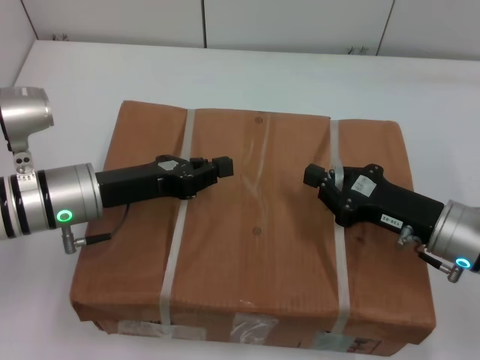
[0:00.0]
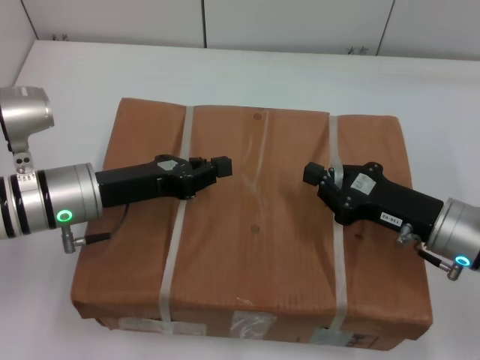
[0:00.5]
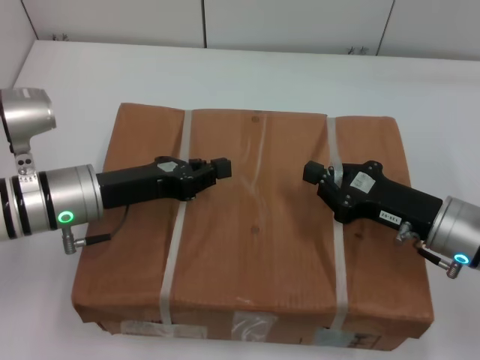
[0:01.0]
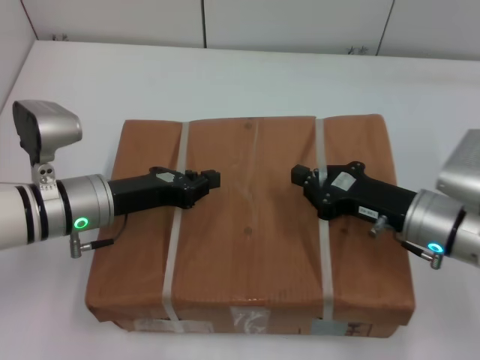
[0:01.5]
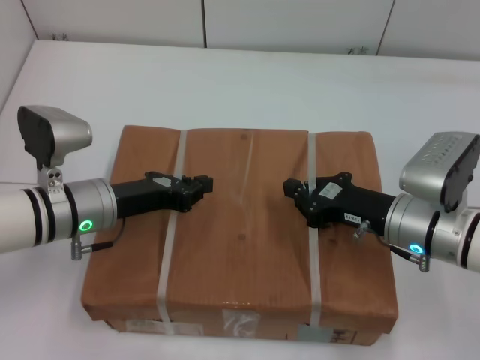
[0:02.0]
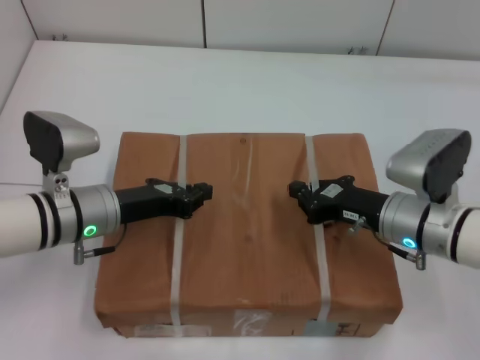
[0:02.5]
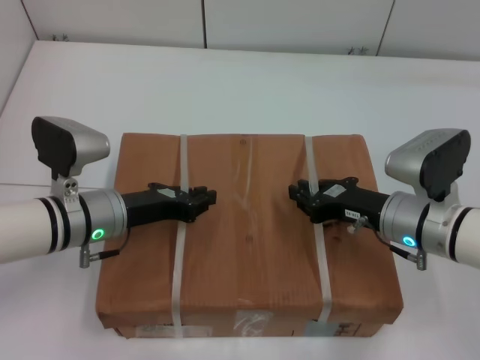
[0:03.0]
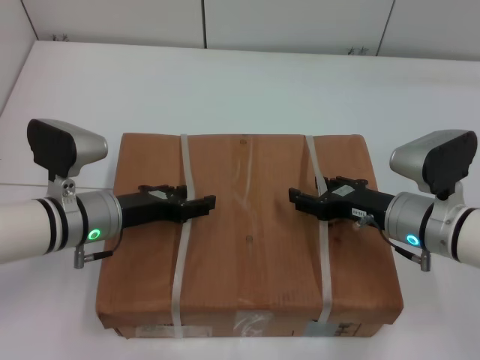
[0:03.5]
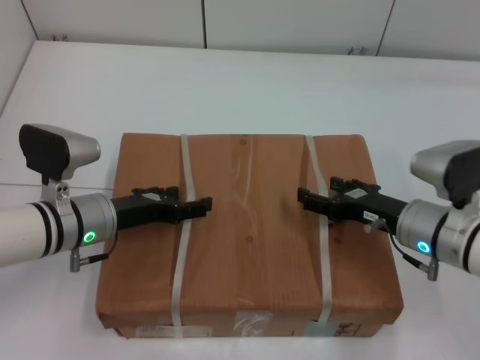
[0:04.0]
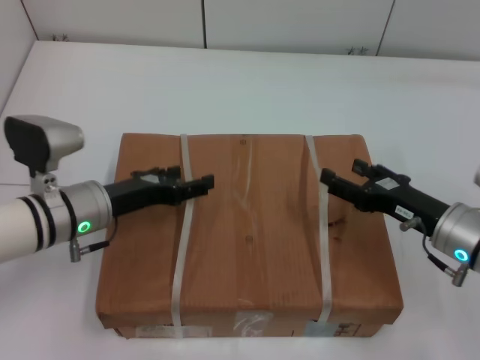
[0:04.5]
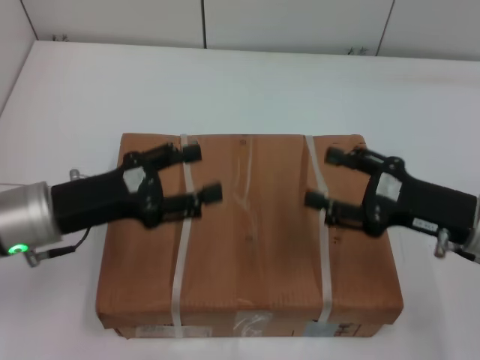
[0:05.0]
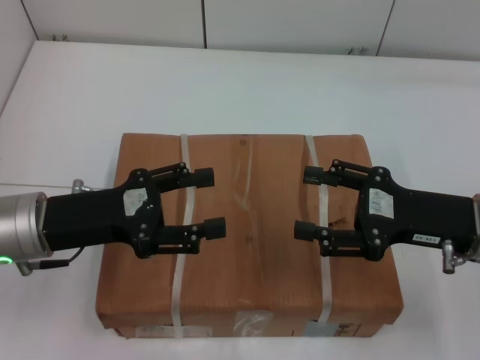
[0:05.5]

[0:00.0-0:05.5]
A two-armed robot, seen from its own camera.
Task of the whole recording: place the box on the table with both arms.
Step, 0:00.0 to 0:02.5: Place the box on the table with left gripper.
Step, 0:00.0 to 0:02.5: Place the box on the table with right gripper.
Step, 0:03.0 to 0:03.5: Loosen the box on the table with left gripper.
Step, 0:03.0 to 0:03.5: Loosen the box on the table with right gripper.
0:02.0 to 0:03.5: The left gripper opens its fingers. Meanwhile the right gripper opens up.
0:03.5 to 0:05.5: The right gripper goes about 10 cm upward, and opens up. Meanwhile the left gripper heads upward and backward, covering roughly 10 cm, and opens.
